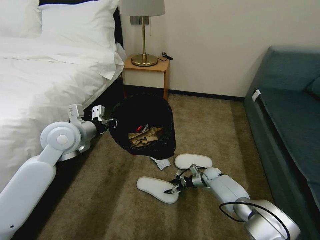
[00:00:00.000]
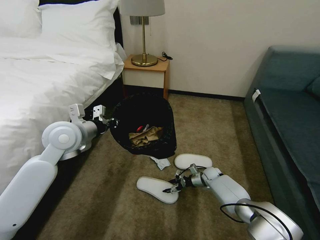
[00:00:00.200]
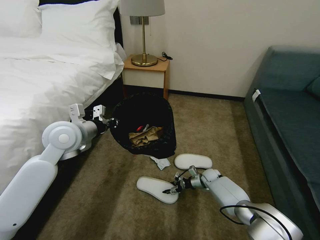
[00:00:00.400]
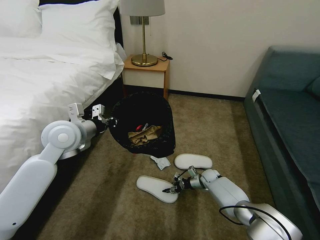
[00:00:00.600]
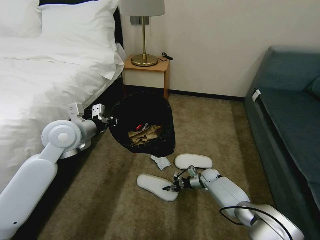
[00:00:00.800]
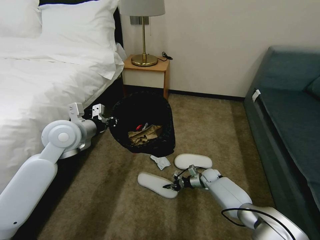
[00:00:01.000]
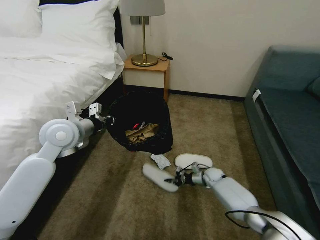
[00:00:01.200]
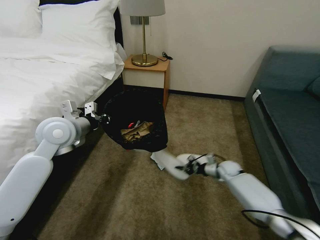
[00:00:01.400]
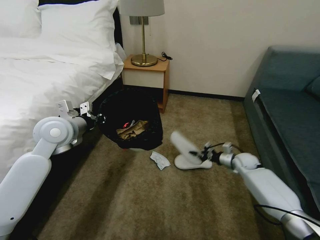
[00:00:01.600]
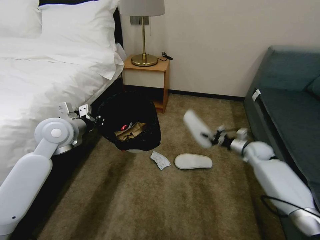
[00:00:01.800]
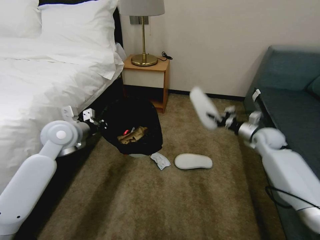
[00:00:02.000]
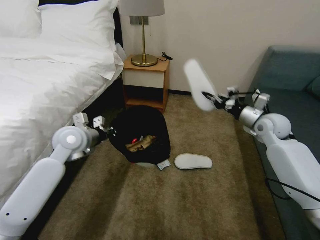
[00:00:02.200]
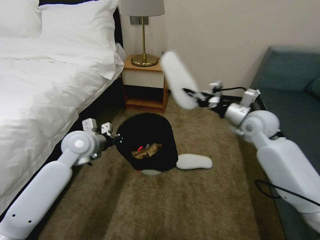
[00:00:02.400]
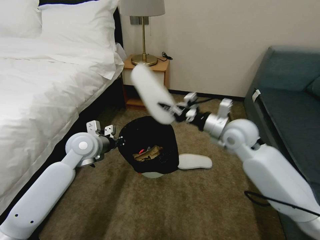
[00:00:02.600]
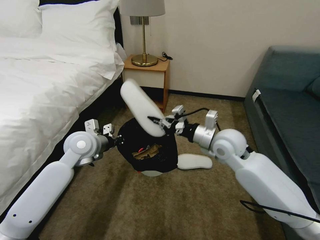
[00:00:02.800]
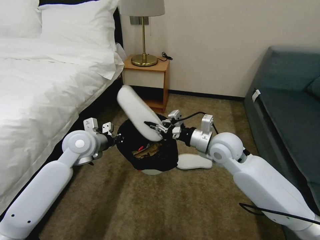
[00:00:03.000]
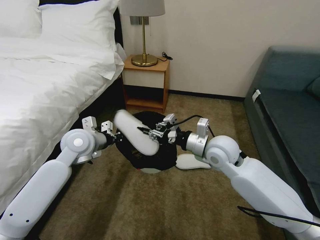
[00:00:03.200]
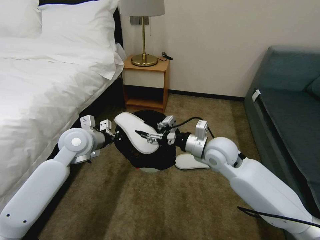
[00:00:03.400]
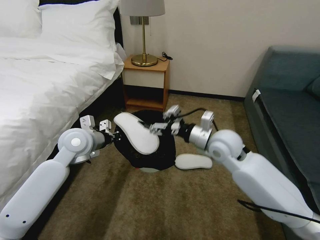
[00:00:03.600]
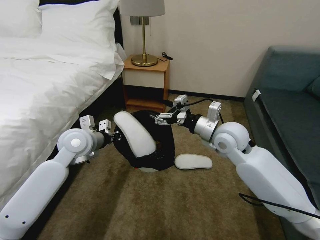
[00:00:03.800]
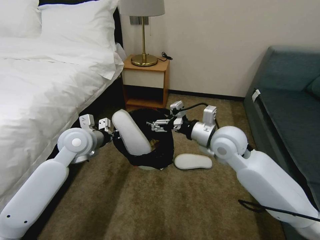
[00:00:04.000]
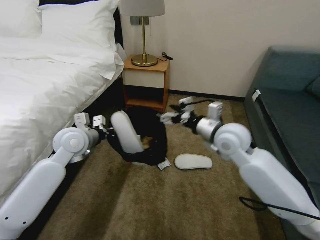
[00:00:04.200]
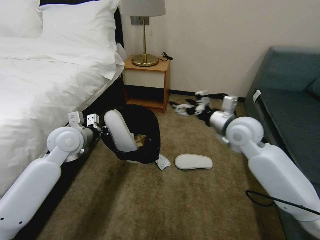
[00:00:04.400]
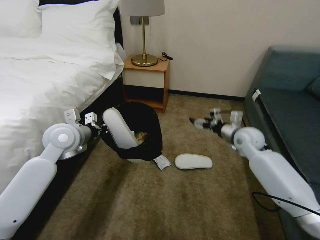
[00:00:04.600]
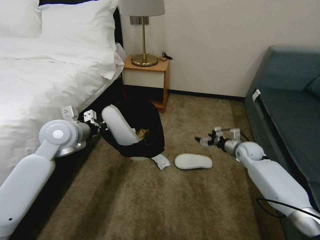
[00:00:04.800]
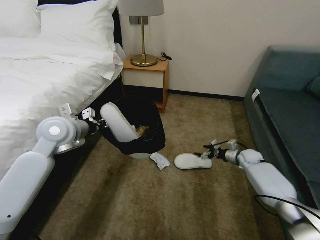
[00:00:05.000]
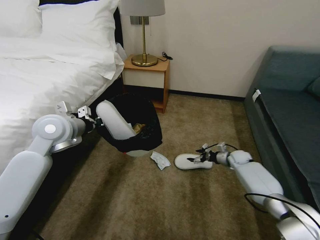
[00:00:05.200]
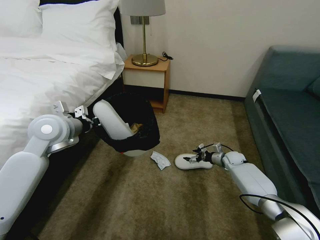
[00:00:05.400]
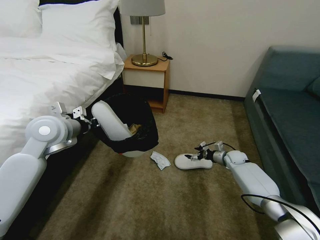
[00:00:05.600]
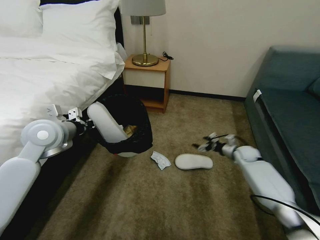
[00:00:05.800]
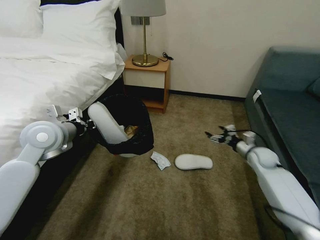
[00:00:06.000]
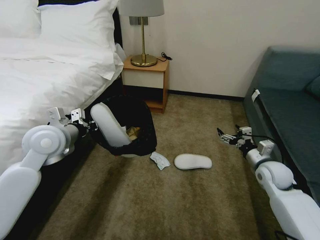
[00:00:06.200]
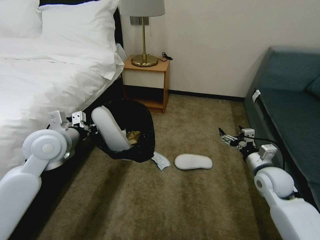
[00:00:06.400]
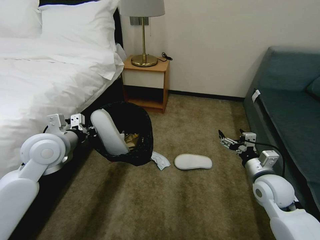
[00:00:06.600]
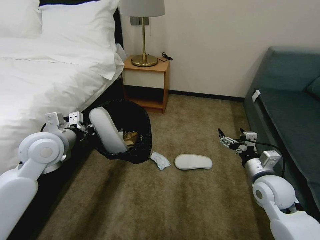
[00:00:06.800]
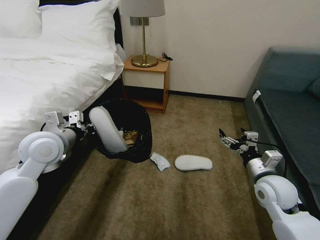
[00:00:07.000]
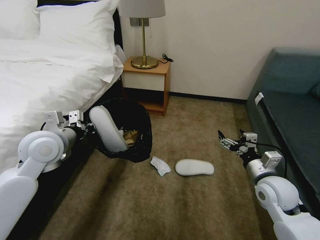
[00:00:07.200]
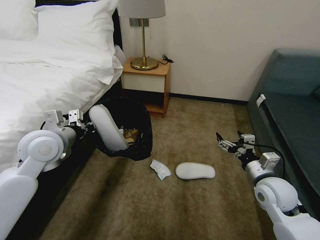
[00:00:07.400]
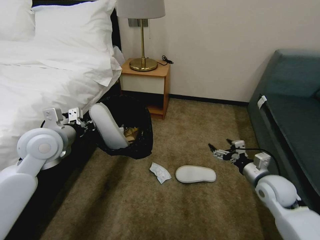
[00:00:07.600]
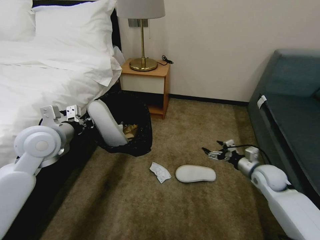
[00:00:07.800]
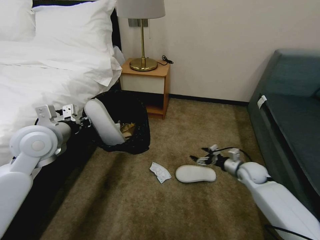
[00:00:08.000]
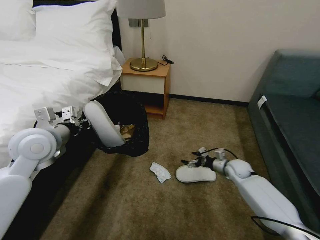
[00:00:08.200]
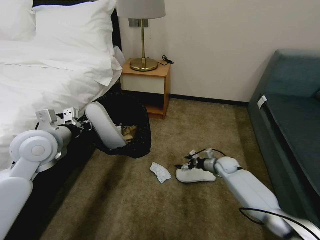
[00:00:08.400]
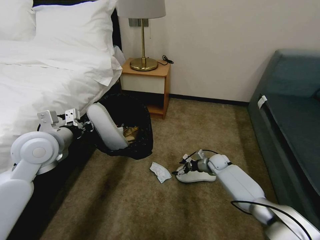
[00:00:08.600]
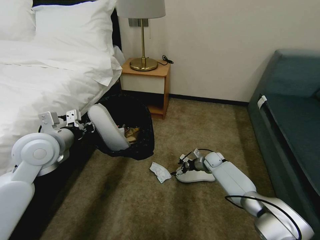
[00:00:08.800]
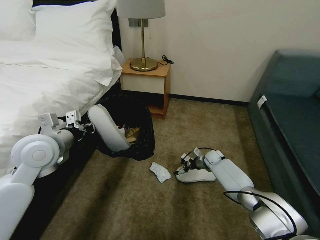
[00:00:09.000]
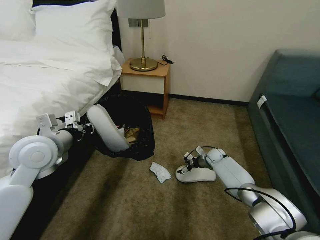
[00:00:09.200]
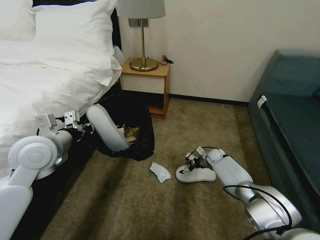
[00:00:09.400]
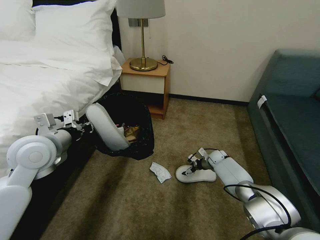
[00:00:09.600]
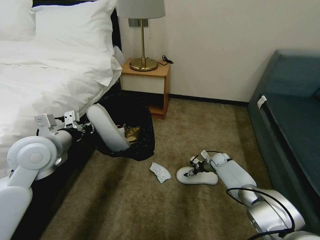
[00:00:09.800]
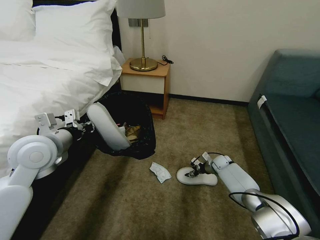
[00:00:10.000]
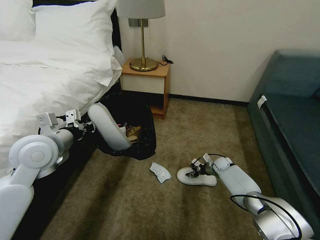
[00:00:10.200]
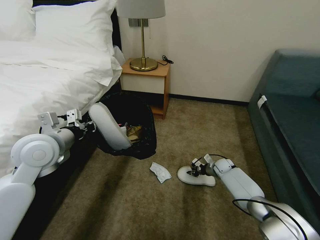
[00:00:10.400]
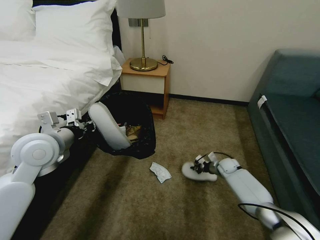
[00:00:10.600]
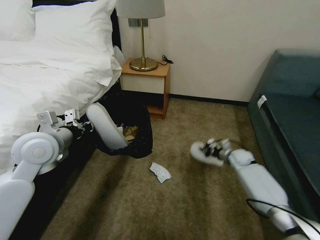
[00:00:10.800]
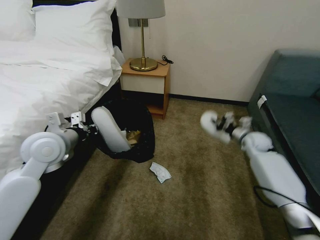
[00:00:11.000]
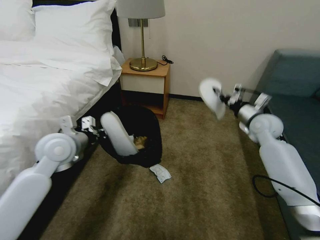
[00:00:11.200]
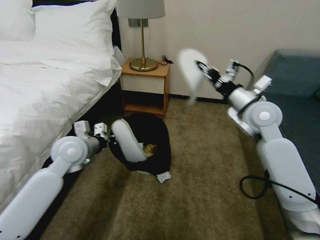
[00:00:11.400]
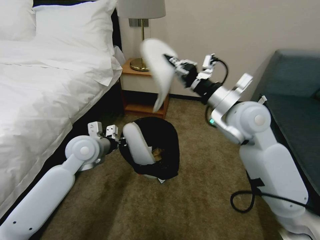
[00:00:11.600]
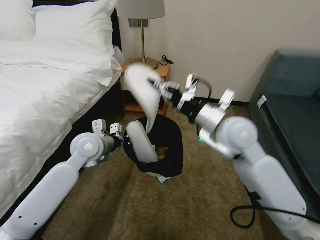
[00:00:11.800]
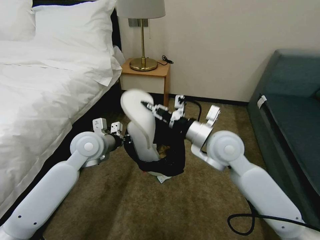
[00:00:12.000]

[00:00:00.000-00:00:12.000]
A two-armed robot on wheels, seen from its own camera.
Task of the whole recording: Pick up the trash bin, then pick up the garbage on the floor and place it into the trash bin.
00:00:00.000 to 00:00:01.600: The right gripper shifts approximately 15 cm upward and to the right, and closes.
00:00:01.600 to 00:00:03.000: The left gripper travels downward by approximately 5 cm. The right gripper travels upward and to the left by some 30 cm.
00:00:03.000 to 00:00:04.400: The right gripper is displaced to the right by some 5 cm, and opens.
00:00:04.400 to 00:00:06.000: The left gripper shifts by some 5 cm. Meanwhile the right gripper shifts some 25 cm downward and to the right.
00:00:06.000 to 00:00:07.600: The right gripper shifts about 15 cm backward and to the left.
00:00:07.600 to 00:00:09.000: The right gripper shifts about 30 cm forward and downward.
00:00:09.000 to 00:00:10.400: The right gripper ends up roughly 5 cm from where it was, and closes.
00:00:10.400 to 00:00:12.000: The right gripper shifts approximately 40 cm upward and to the left, while the left gripper goes approximately 10 cm to the right, forward and downward.

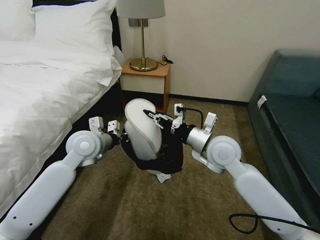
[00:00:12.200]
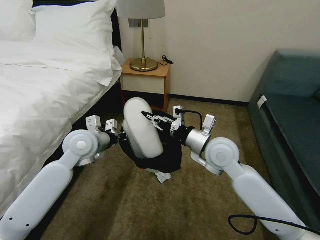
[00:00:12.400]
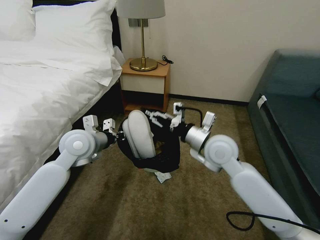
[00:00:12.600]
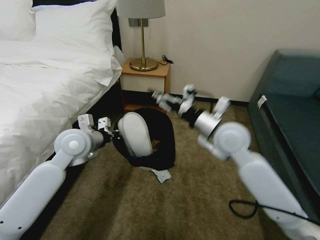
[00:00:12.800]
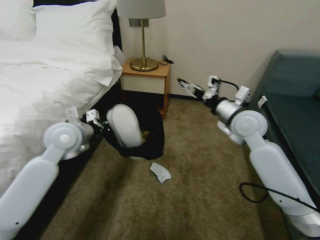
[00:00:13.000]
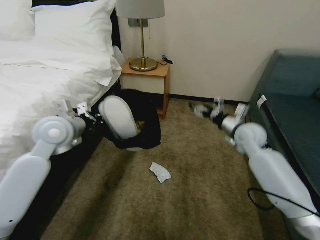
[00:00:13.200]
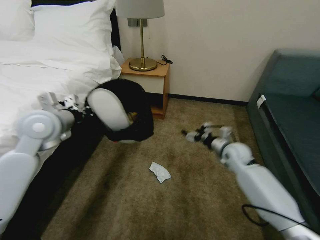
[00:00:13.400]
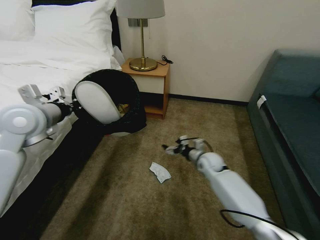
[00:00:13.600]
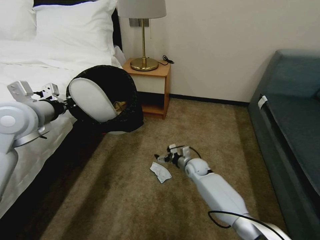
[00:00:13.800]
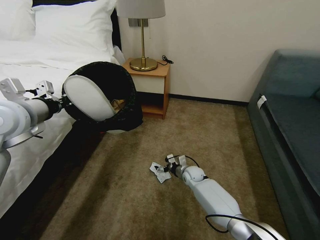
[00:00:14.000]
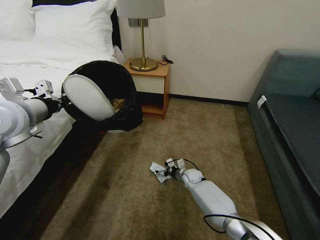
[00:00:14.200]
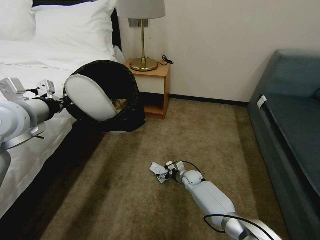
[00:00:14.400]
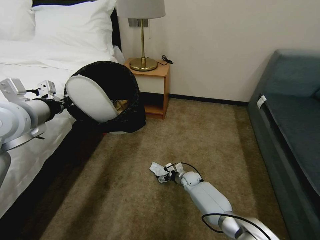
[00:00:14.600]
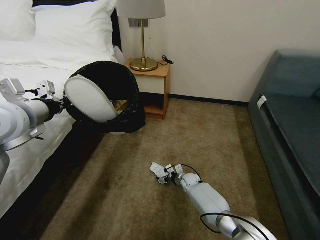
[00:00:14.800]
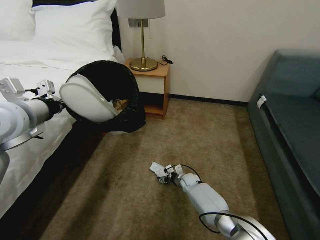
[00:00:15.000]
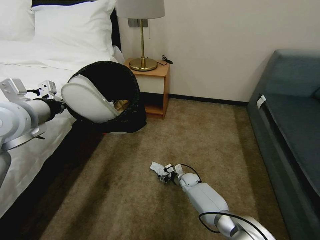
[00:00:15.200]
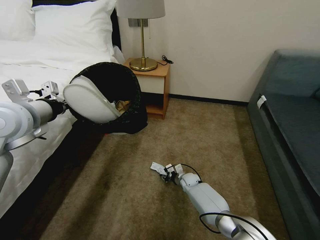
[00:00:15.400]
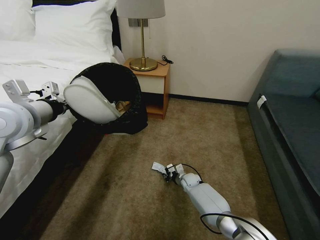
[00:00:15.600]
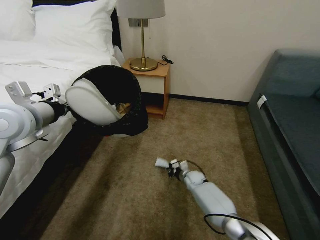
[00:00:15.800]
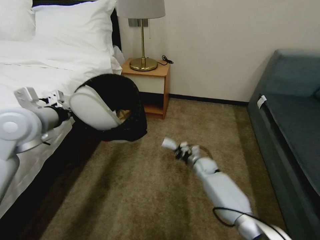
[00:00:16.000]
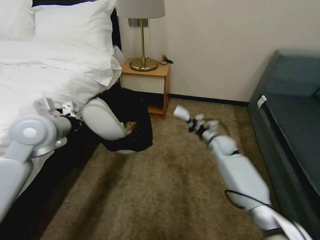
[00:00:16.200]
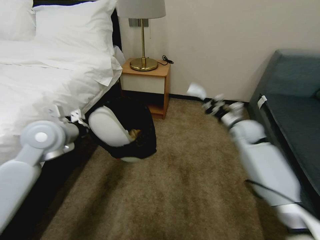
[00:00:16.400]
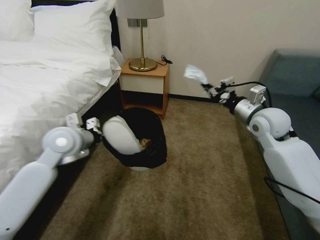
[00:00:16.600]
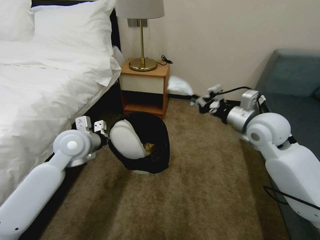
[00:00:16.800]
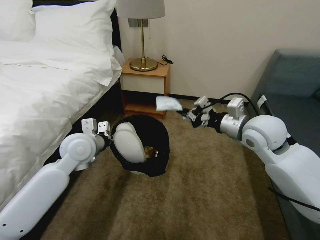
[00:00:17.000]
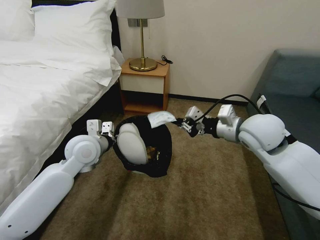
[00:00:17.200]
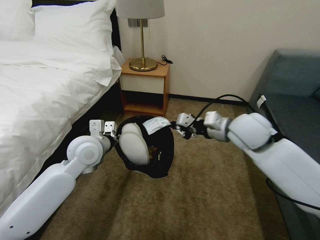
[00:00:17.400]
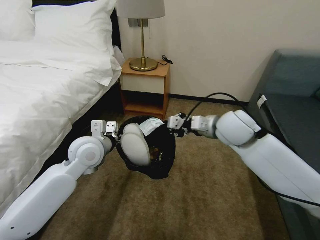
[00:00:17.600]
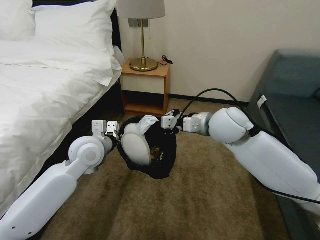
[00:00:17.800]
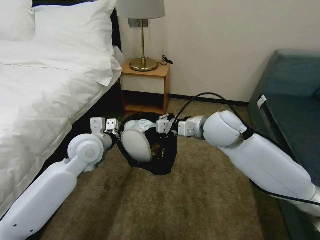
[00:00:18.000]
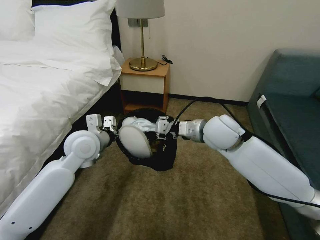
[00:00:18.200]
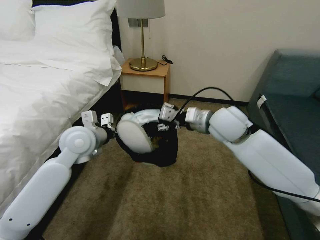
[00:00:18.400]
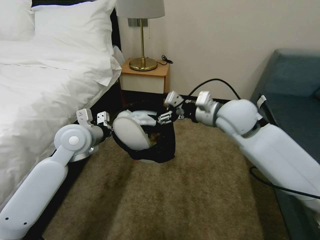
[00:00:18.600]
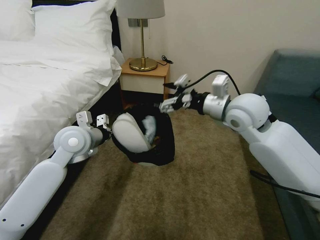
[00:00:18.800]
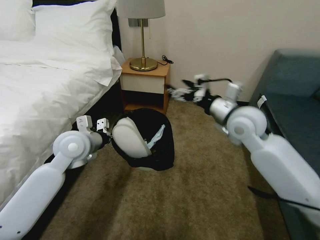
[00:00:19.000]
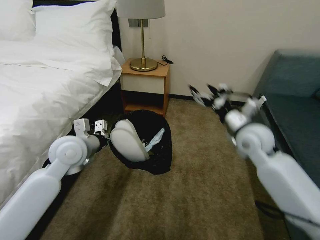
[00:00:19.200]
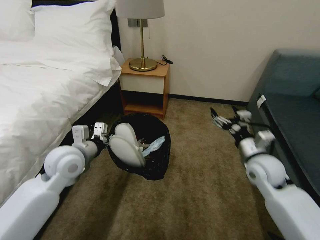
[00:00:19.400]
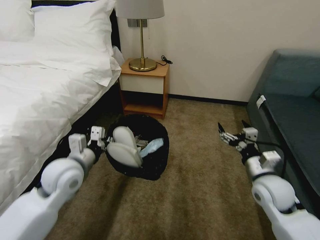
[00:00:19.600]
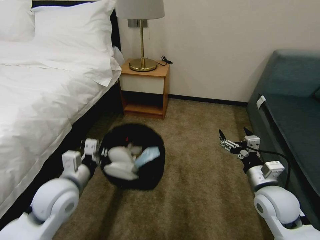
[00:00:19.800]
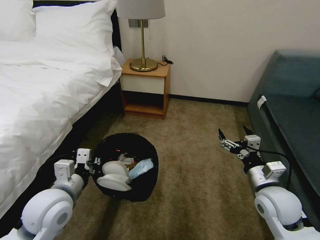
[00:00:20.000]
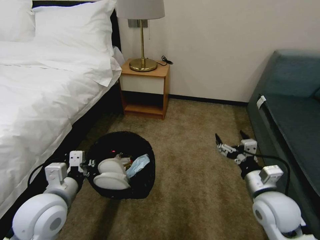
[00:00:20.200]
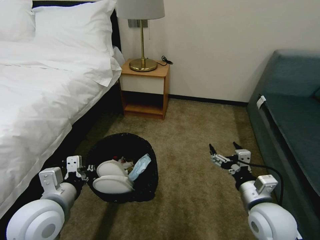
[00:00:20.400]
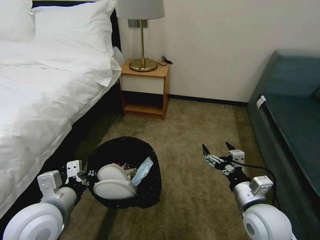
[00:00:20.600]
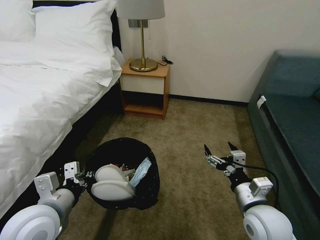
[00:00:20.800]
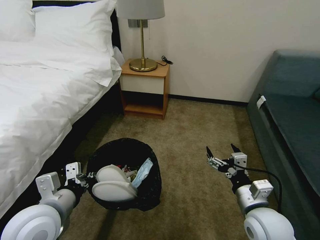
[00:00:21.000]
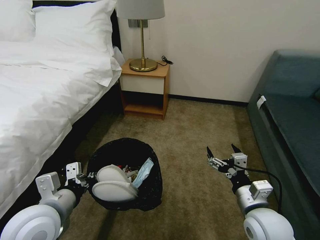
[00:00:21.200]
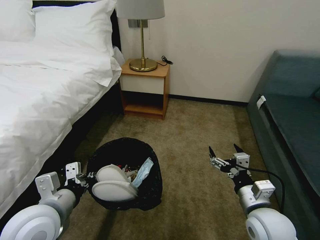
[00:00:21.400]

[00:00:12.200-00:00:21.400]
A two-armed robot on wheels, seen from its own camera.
Task of the whole recording: Pick up the trash bin, then pick up the garbage on the floor and place it into the trash bin.
00:00:12.200 to 00:00:13.800: The left gripper heads upward and to the left, covering approximately 15 cm. Meanwhile the right gripper travels downward by about 25 cm, and opens up.
00:00:13.800 to 00:00:15.200: The right gripper travels downward by about 10 cm, and closes.
00:00:15.200 to 00:00:16.800: The left gripper is displaced downward and to the right by approximately 15 cm, while the right gripper goes roughly 40 cm upward, and closes up.
00:00:16.800 to 00:00:18.400: The right gripper is displaced to the left by some 10 cm, and opens up.
00:00:18.400 to 00:00:19.800: The right gripper moves backward, downward and to the right, about 25 cm; the left gripper shifts about 15 cm backward and downward.
00:00:19.800 to 00:00:21.400: The two grippers go about 5 cm backward.
